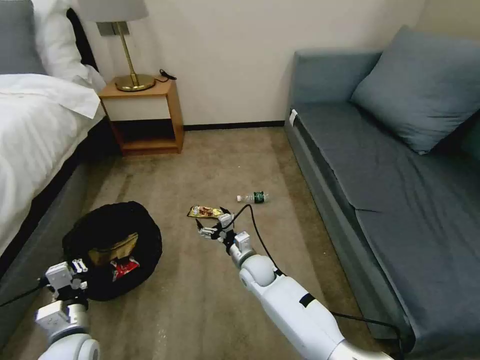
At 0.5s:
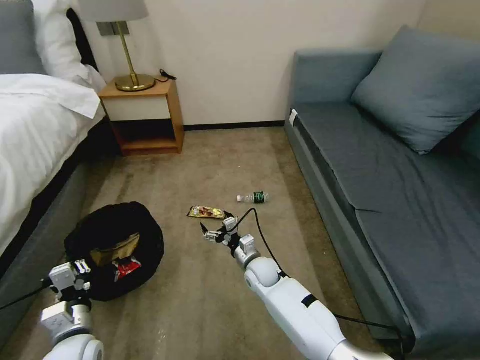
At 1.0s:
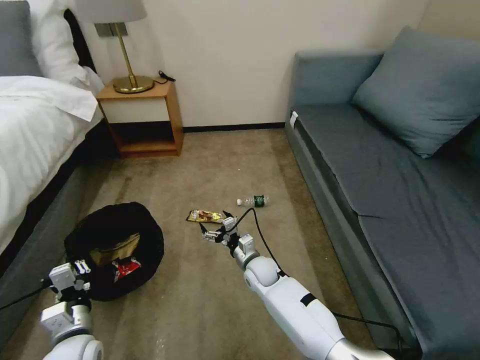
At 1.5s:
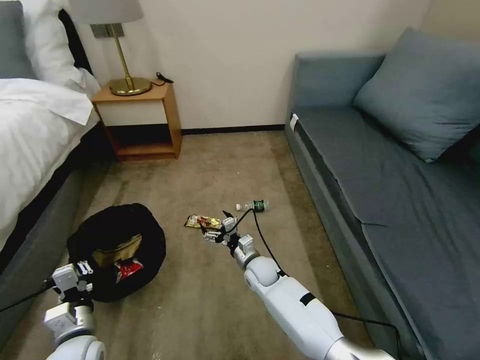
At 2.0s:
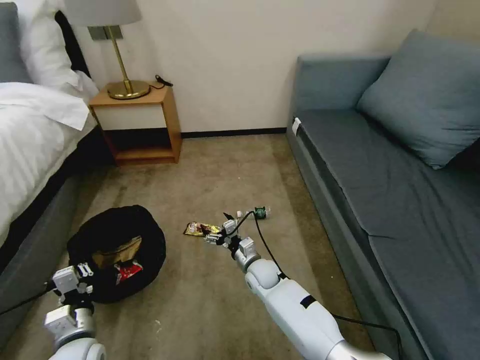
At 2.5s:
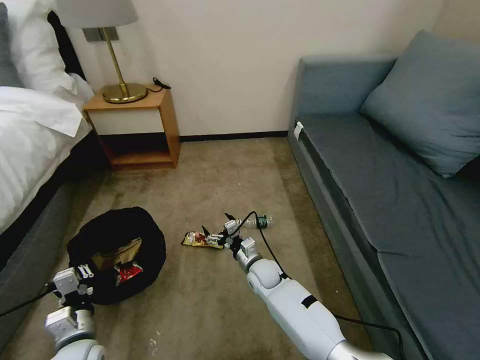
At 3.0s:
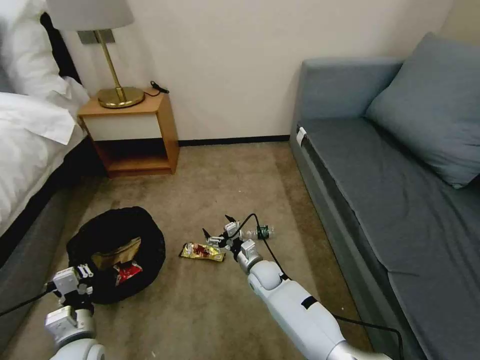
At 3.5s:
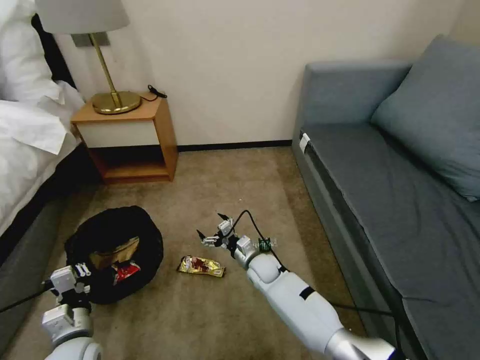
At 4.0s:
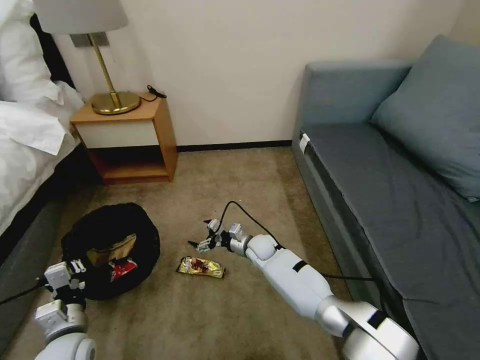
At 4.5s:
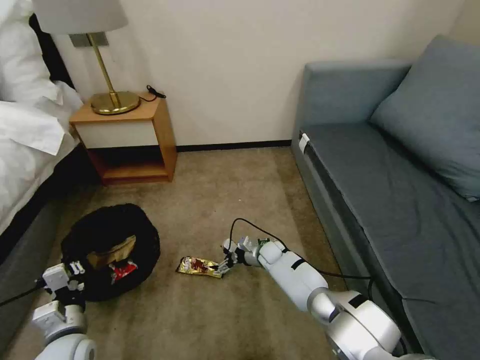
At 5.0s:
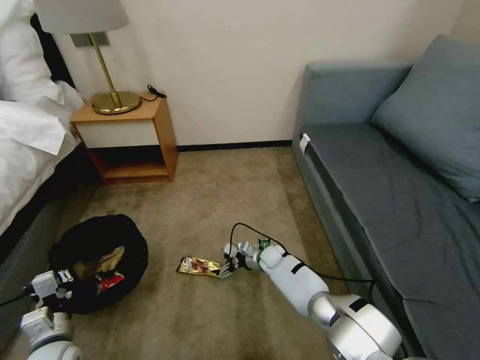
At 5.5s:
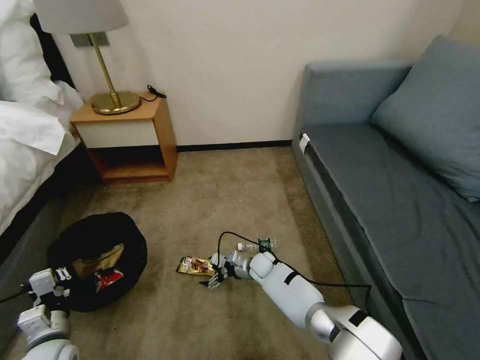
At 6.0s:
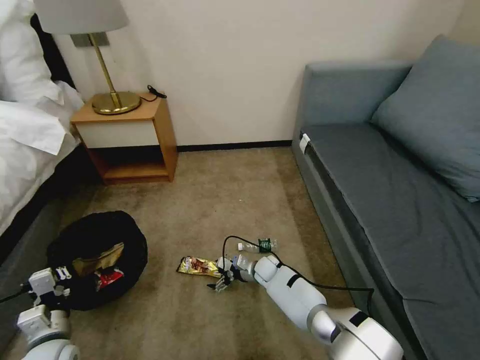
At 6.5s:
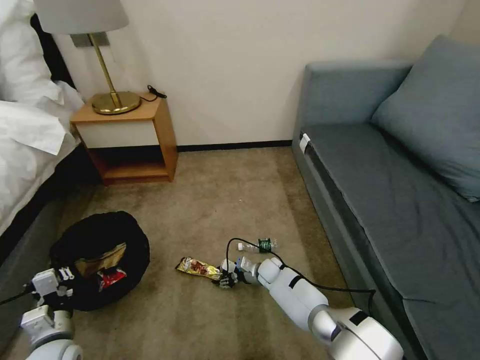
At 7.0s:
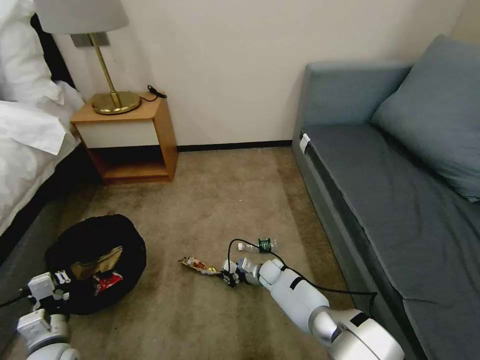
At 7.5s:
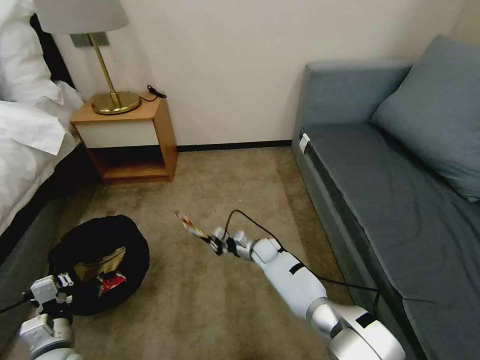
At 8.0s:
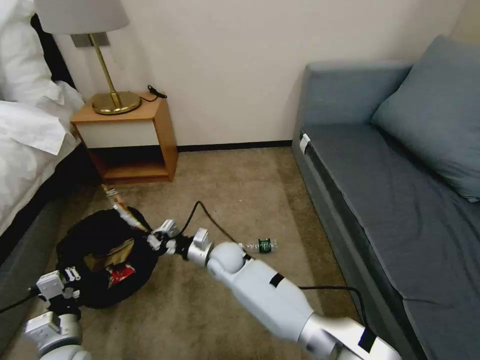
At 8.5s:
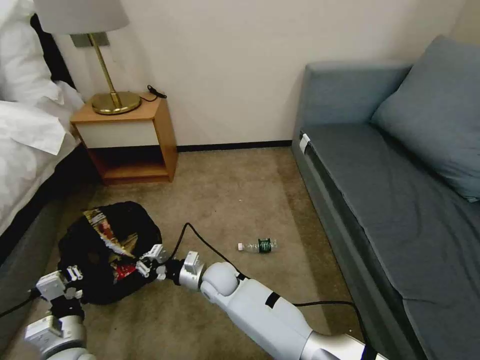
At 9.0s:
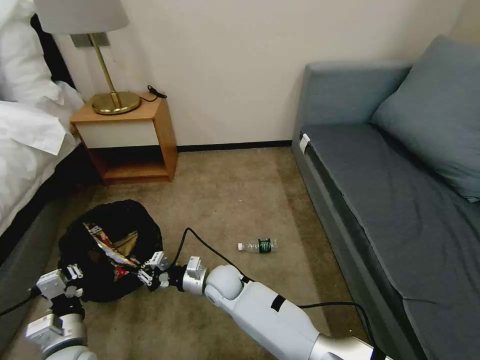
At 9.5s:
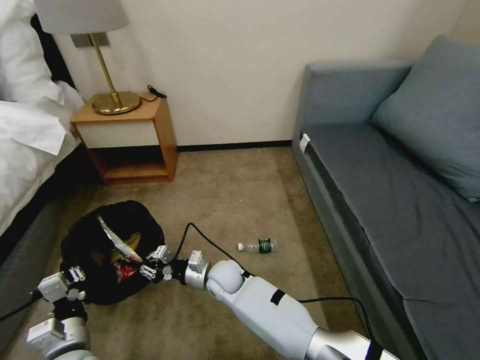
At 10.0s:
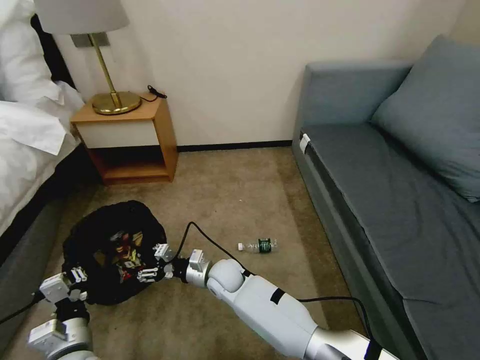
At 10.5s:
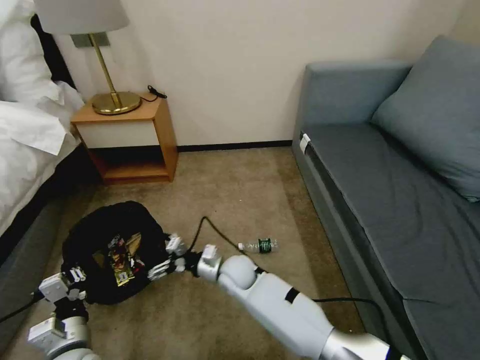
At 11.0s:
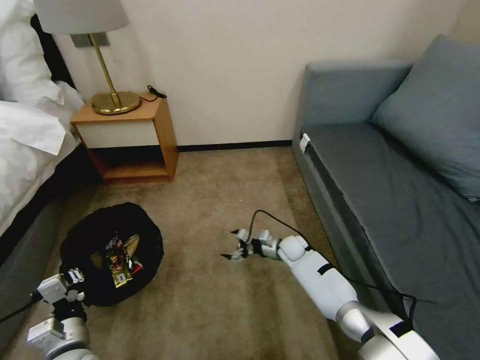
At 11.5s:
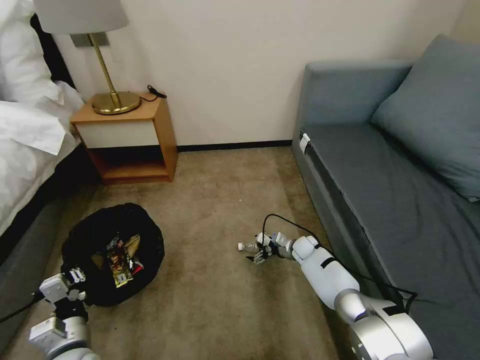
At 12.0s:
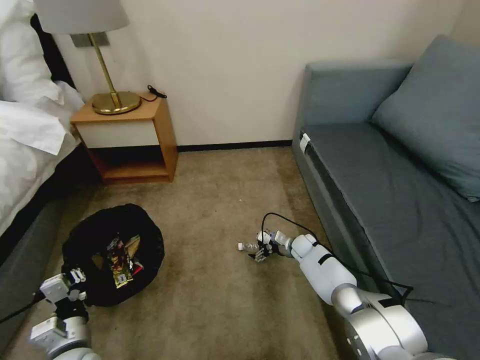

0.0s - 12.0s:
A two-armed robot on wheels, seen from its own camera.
Task of the whole recording: Pick up the trash bin, then pick up the garbage on the floor and place it into the trash bin.
0.0s - 2.0s: The grippers stay close to where they were, moving slightly.
2.0s - 4.0s: The right gripper is displaced forward by roughly 10 cm.
4.0s - 6.0s: The right gripper shifts some 10 cm downward.
6.0s - 8.0s: The right gripper travels upward and to the left by some 20 cm, and closes up.
8.0s - 10.0s: The right gripper opens up.
10.0s - 12.0s: The right gripper heads to the right and forward, covering roughly 30 cm, and opens its fingers.

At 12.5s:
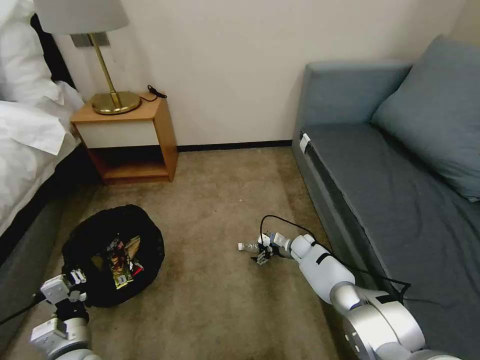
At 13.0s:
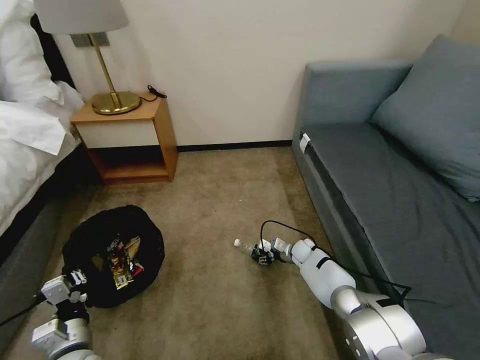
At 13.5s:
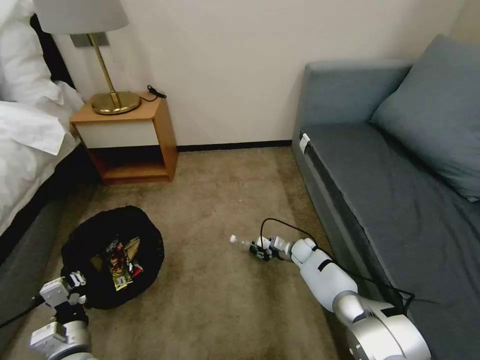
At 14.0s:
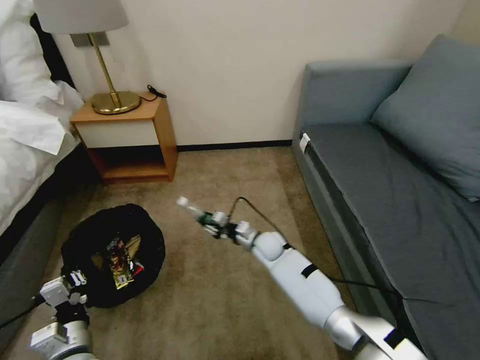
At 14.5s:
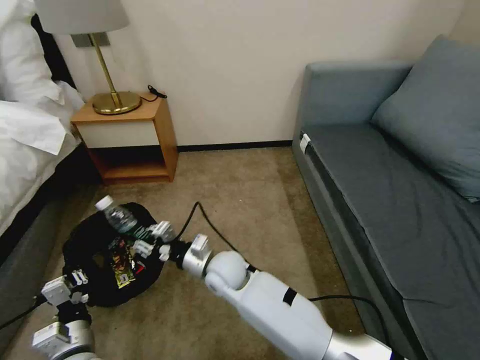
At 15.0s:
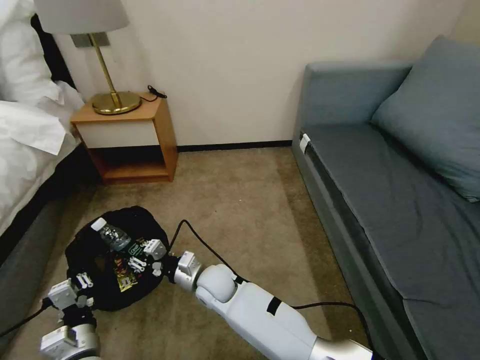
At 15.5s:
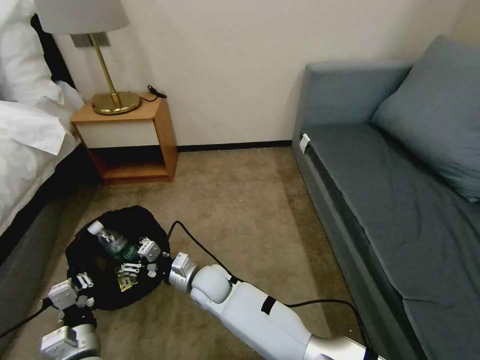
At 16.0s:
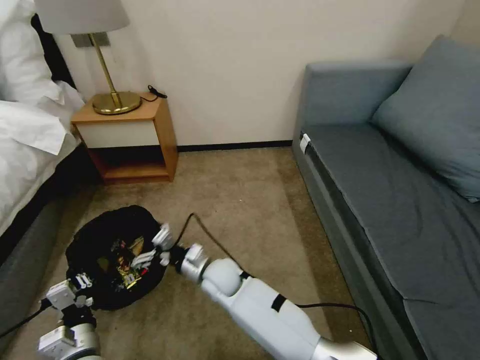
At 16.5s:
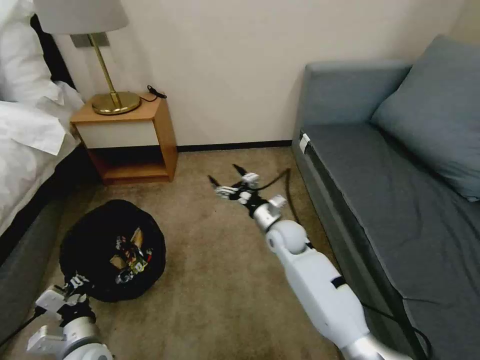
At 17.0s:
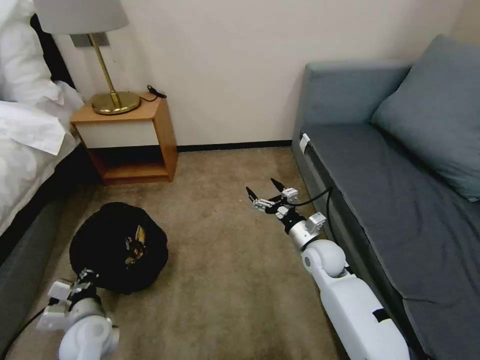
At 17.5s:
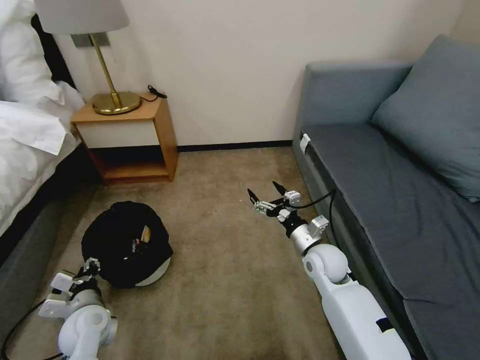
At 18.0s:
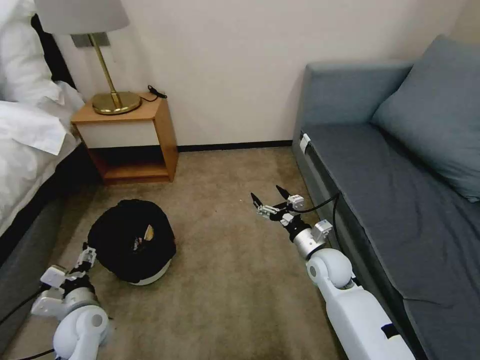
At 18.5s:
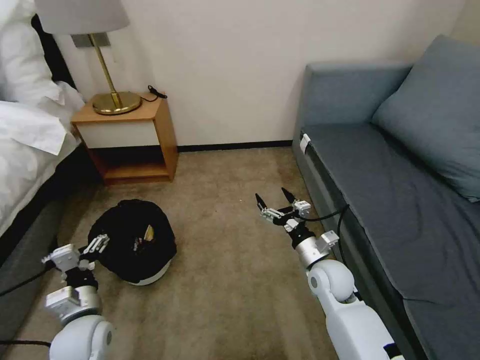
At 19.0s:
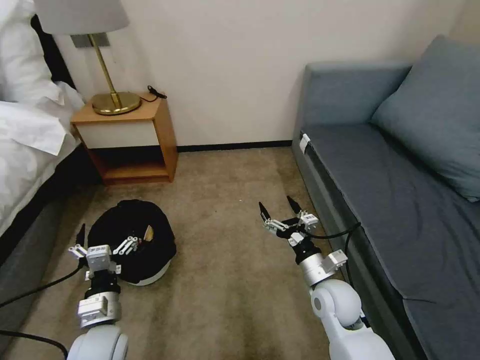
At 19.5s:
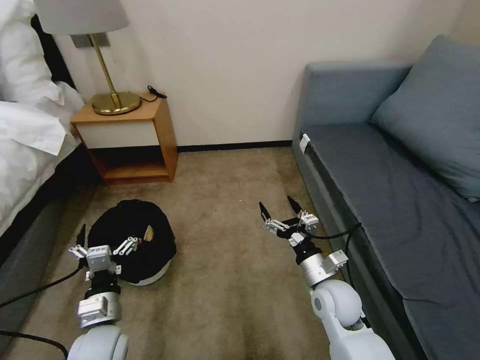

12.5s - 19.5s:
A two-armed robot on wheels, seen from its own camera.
Task of the whole recording: Pick up the trash bin, then pick up the garbage on the floor and place it into the trash bin.
12.5s - 14.5s: The right gripper is displaced to the left, upward and backward by about 35 cm, and closes.
14.5s - 16.0s: The right gripper opens up.
16.0s - 17.5s: The right gripper moves to the right, roughly 25 cm. Meanwhile the left gripper goes some 10 cm forward, and opens up.
17.5s - 19.5s: The left gripper shifts about 5 cm to the right, and opens its fingers, while the right gripper moves backward, some 10 cm.

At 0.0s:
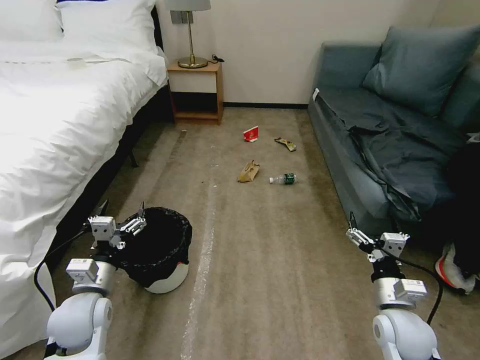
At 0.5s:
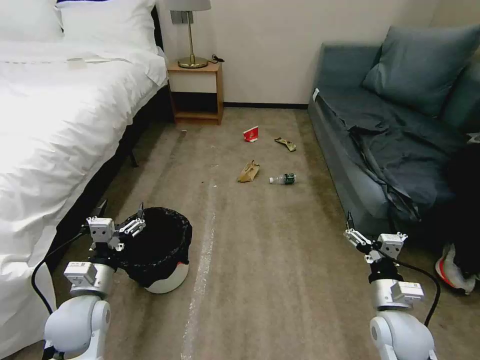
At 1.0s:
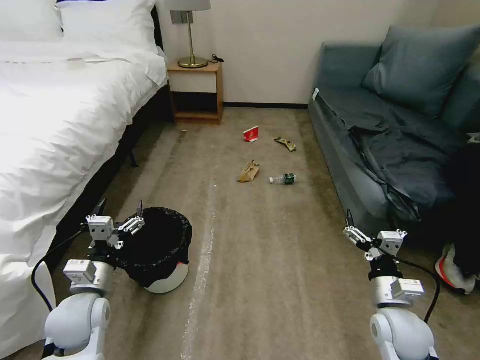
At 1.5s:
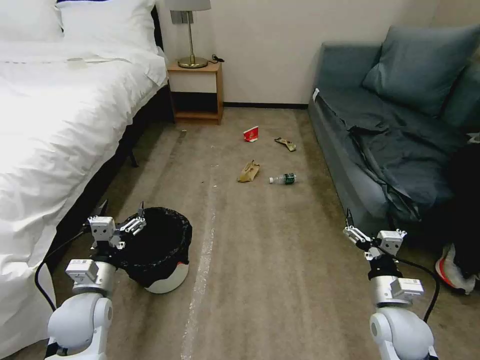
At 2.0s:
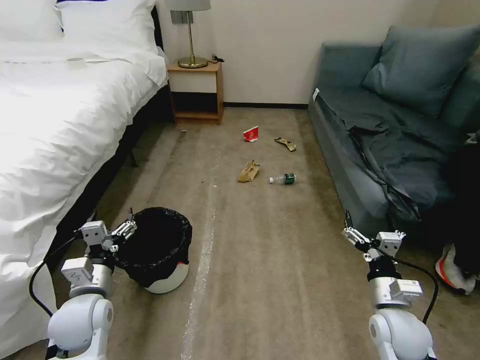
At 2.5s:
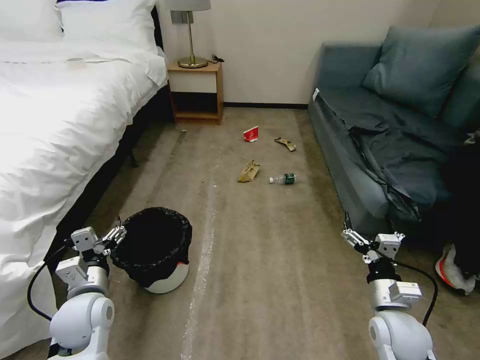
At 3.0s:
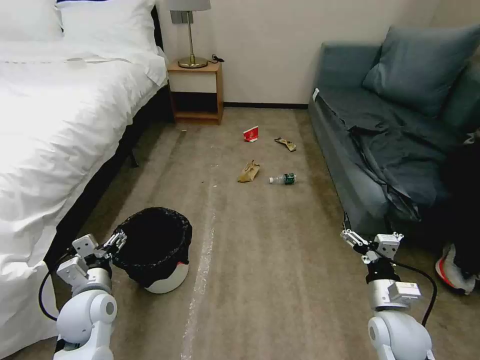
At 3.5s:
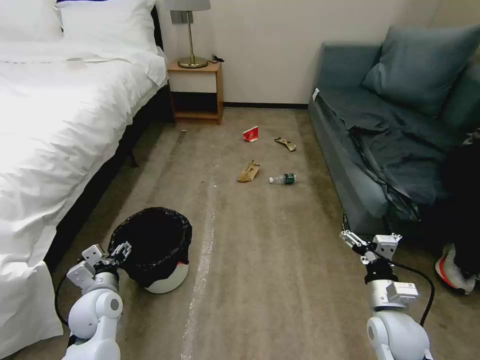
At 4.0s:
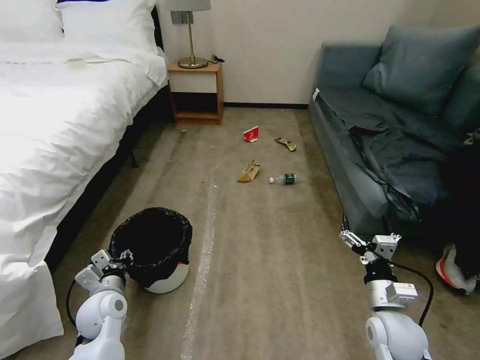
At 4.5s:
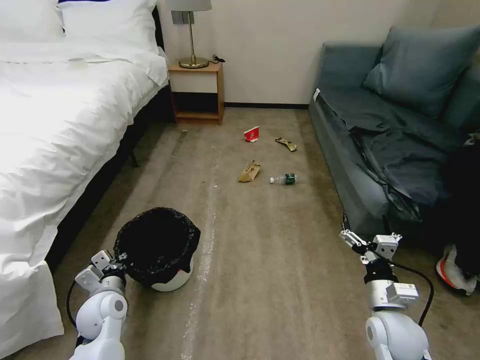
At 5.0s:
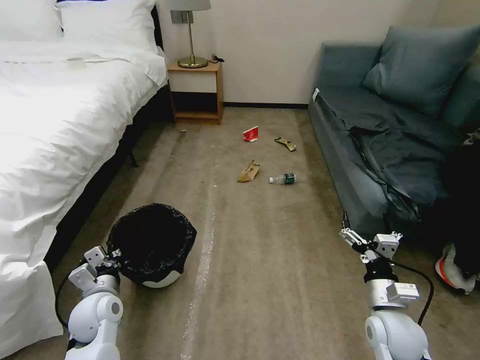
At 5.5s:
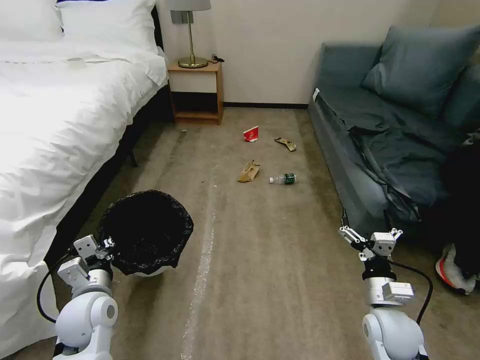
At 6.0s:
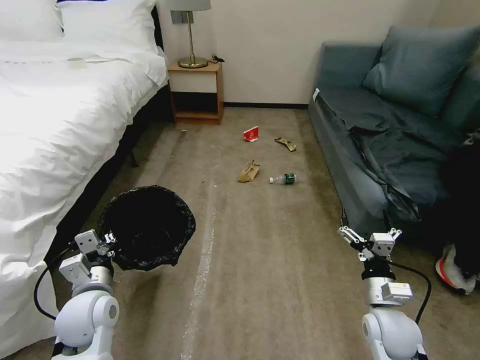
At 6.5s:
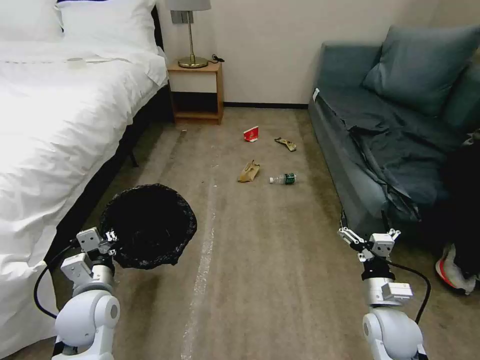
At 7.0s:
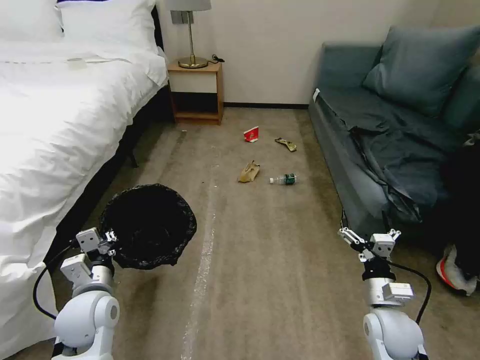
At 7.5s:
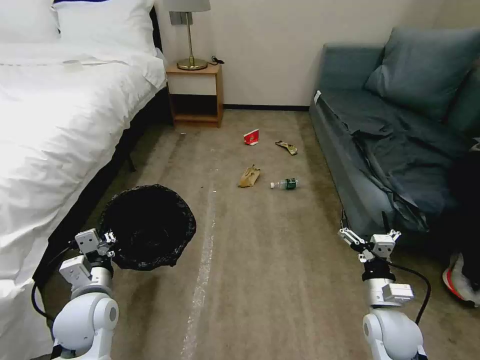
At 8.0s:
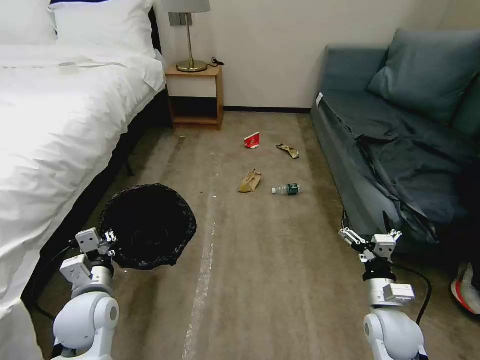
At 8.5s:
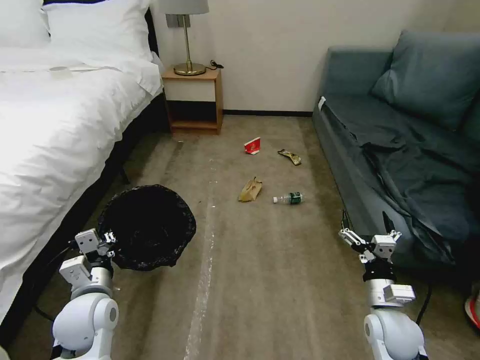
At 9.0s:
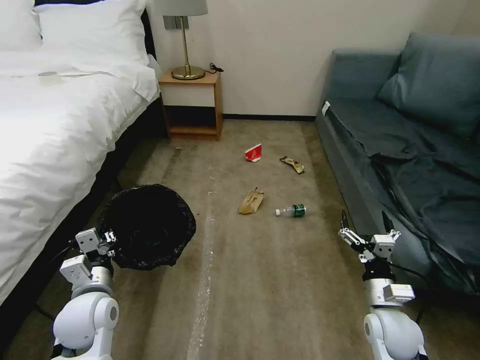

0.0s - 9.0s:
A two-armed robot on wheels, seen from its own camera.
Task of the whole recording: Pick up the trash bin, then pick up the garbage on the floor and place it into the trash bin.
2.0s - 4.5s: The left gripper travels downward by some 5 cm, and closes up.
4.5s - 7.0s: The left gripper goes some 10 cm upward.
